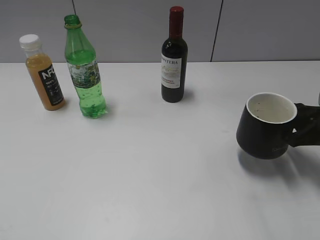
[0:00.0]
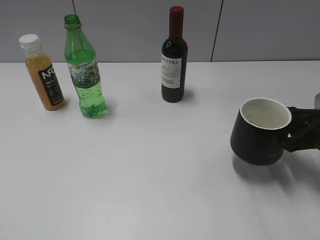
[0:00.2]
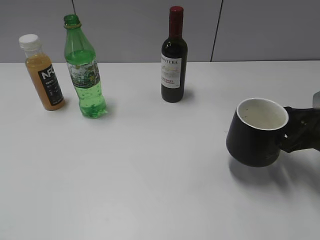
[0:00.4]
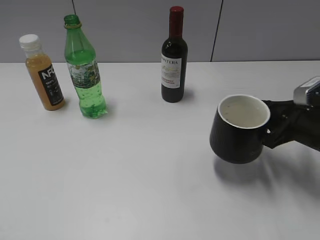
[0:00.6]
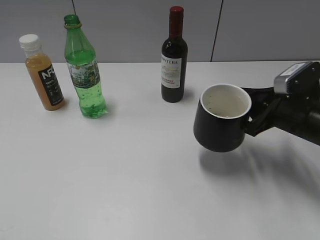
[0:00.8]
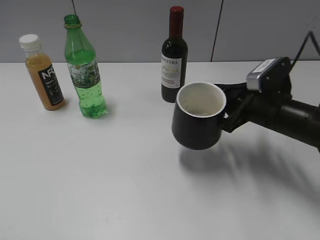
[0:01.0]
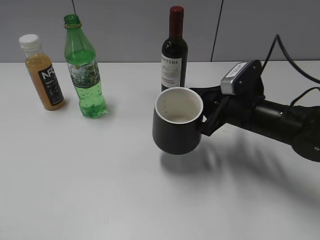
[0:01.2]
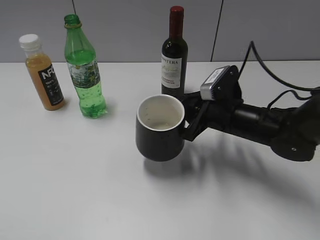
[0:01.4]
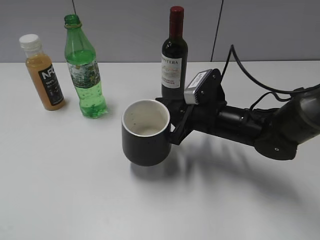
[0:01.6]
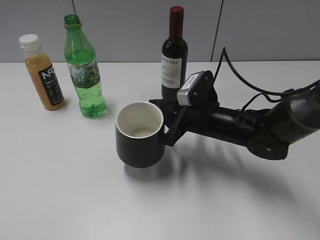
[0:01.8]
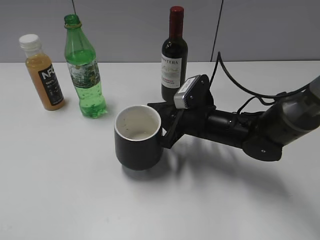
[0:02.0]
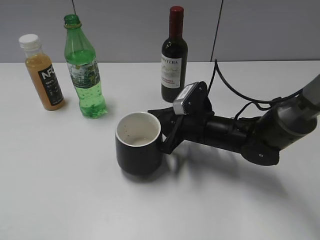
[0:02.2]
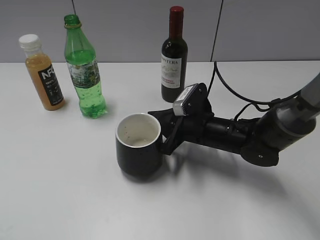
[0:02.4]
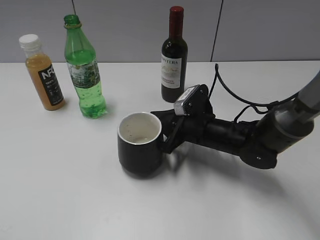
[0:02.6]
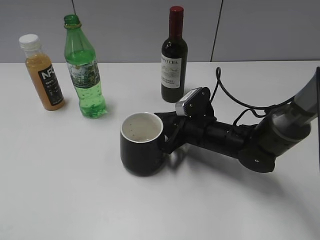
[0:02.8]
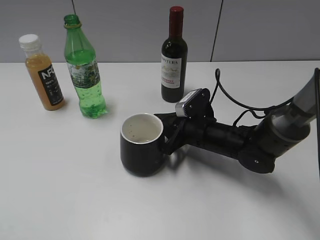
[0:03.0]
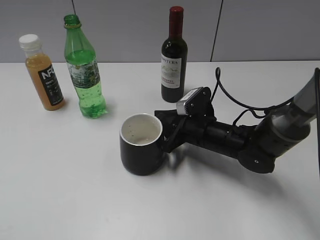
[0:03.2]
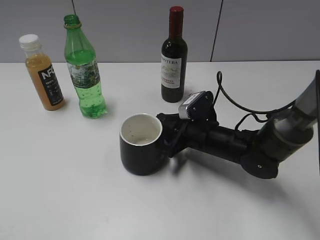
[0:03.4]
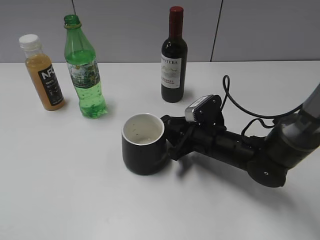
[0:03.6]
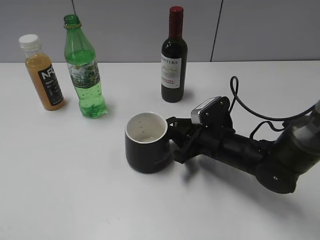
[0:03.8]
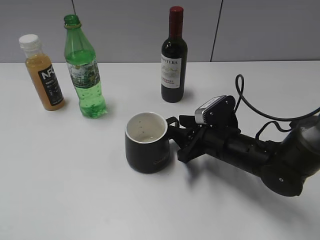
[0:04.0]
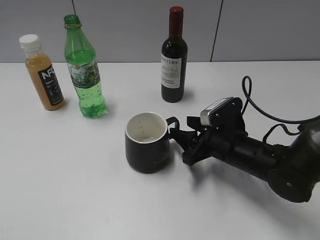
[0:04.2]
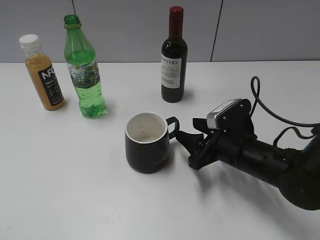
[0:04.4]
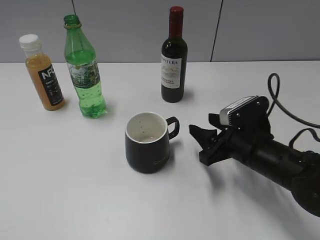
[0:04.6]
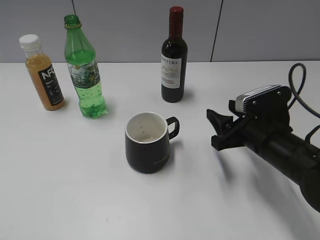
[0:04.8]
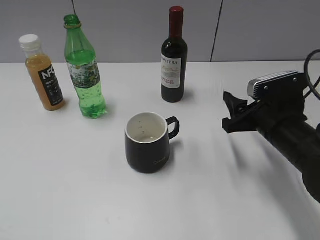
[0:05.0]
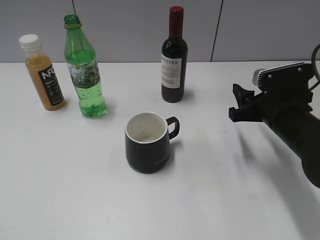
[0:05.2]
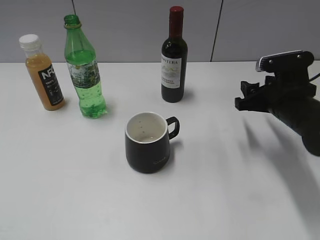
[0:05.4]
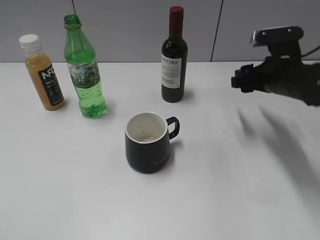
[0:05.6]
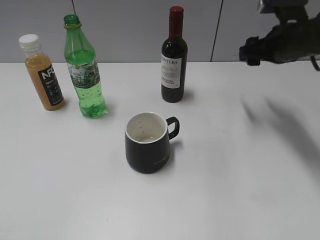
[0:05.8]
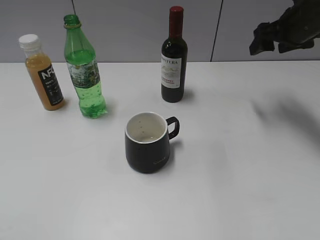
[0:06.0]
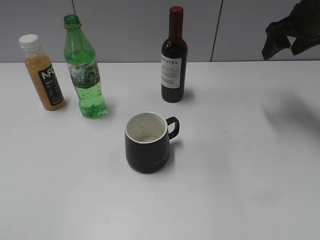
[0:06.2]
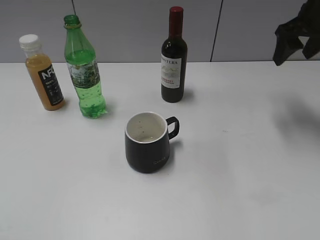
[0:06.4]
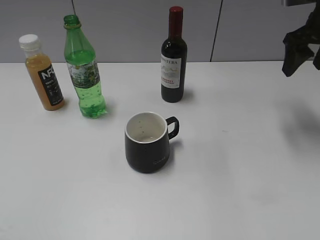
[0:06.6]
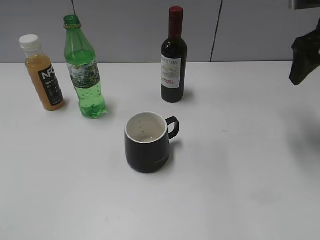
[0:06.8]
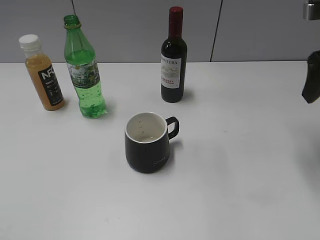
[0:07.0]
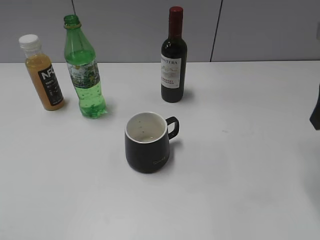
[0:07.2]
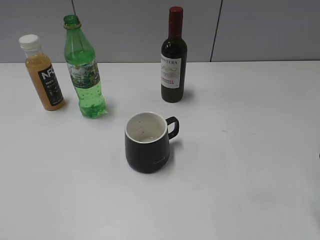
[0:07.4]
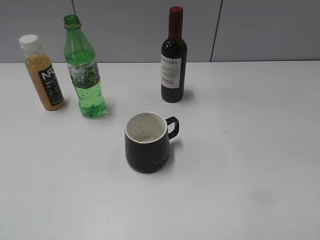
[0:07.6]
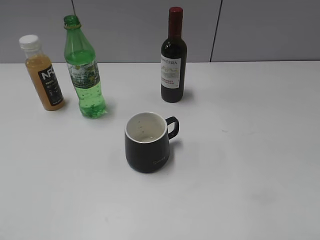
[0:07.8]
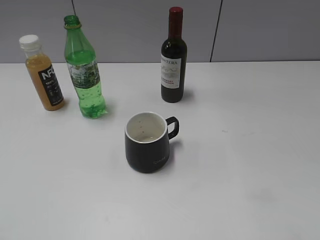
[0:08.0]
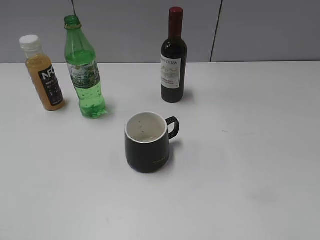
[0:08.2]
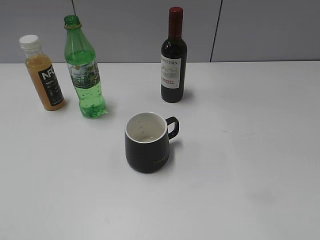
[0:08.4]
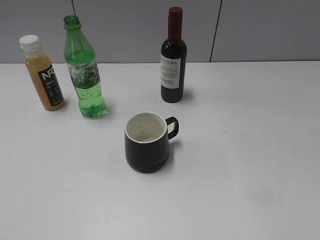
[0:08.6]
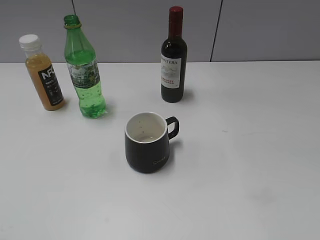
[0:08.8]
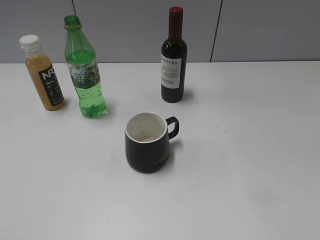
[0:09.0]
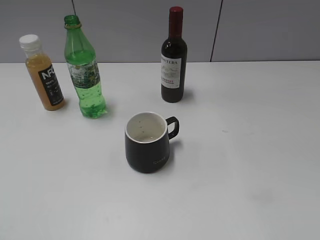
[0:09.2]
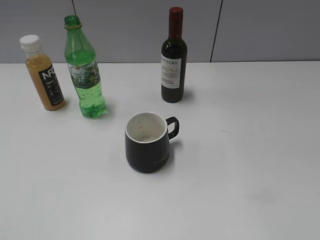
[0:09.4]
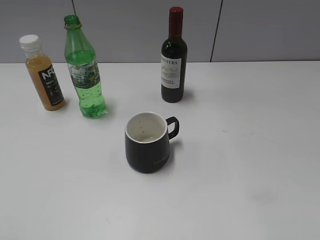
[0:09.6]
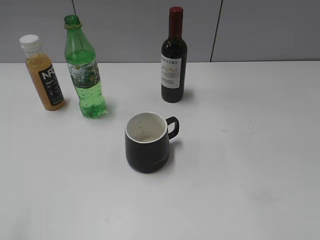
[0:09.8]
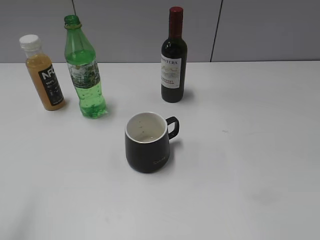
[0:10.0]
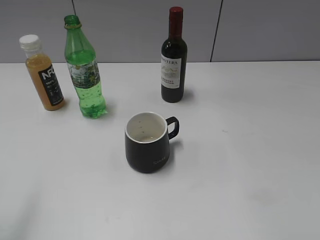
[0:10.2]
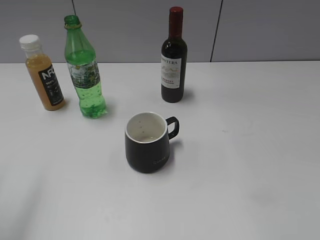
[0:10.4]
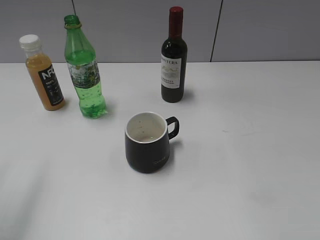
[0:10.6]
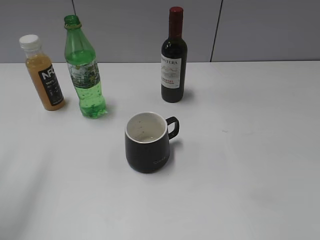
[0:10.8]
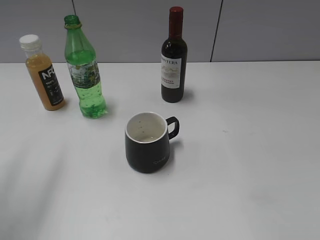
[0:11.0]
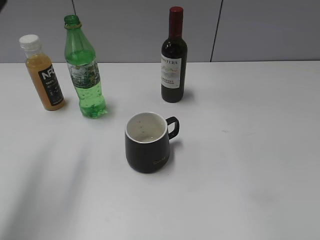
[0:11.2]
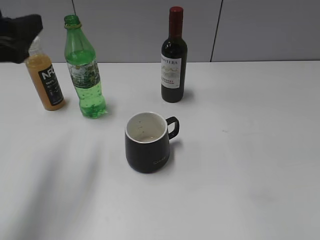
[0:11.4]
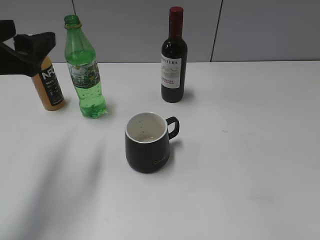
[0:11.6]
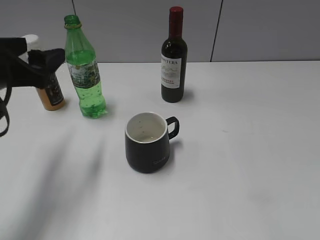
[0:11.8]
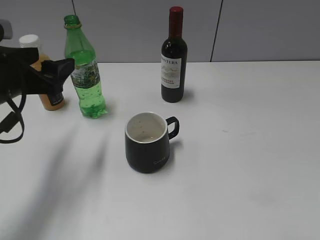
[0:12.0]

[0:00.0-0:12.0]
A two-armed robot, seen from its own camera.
Step, 0:00.0 to 0:04.2: Place the black cup in the center of view with right gripper.
0:00.0 to 0:01.6: The right gripper travels to the left by approximately 20 cm.
0:01.6 to 0:03.0: The right gripper travels downward by some 5 cm.
0:03.0 to 0:04.4: The right gripper is displaced backward and to the right by some 10 cm, and opens its fingers.
0:04.4 to 0:06.0: The right gripper travels upward, forward and to the right by roughly 25 cm.
0:06.0 to 0:07.6: The right gripper shifts roughly 25 cm backward.
0:09.0 to 0:10.4: The left gripper is displaced forward by some 15 cm.
0:10.4 to 0:12.0: The left gripper heads downward, forward and to the right, covering roughly 20 cm.

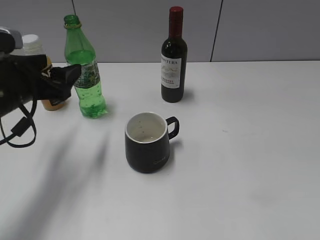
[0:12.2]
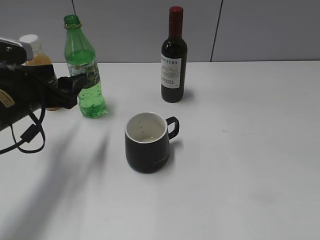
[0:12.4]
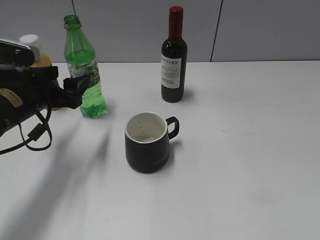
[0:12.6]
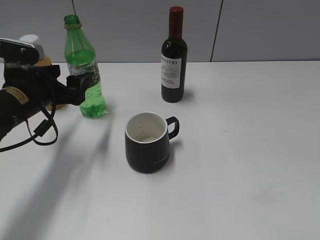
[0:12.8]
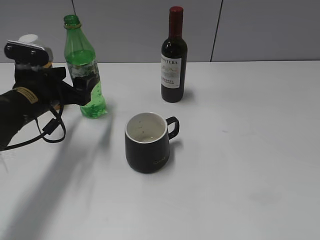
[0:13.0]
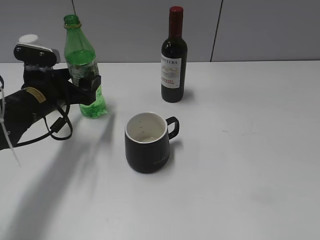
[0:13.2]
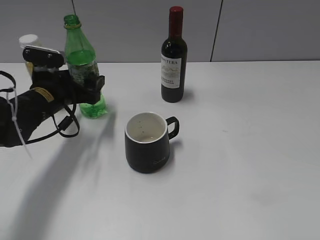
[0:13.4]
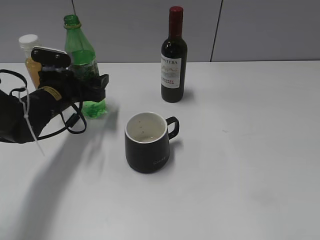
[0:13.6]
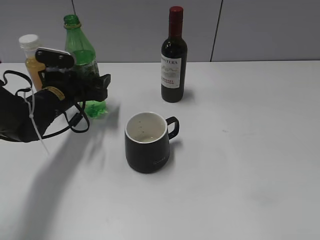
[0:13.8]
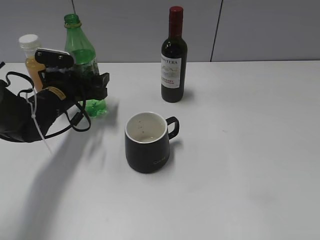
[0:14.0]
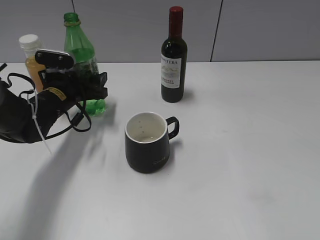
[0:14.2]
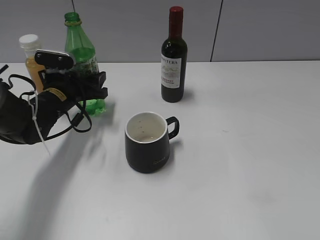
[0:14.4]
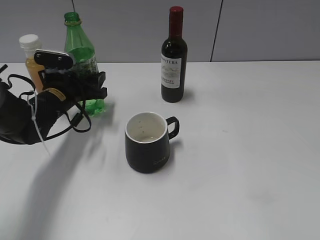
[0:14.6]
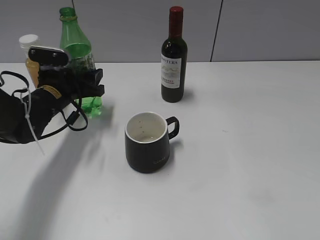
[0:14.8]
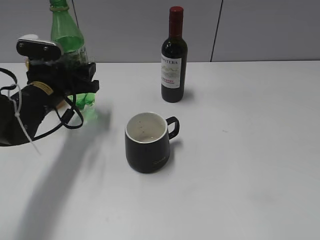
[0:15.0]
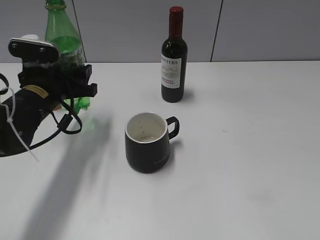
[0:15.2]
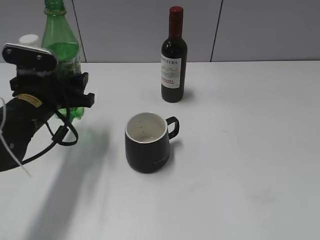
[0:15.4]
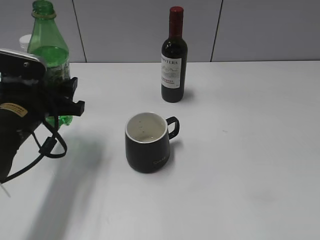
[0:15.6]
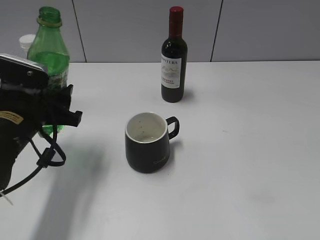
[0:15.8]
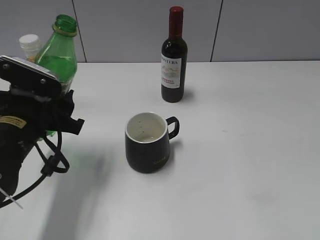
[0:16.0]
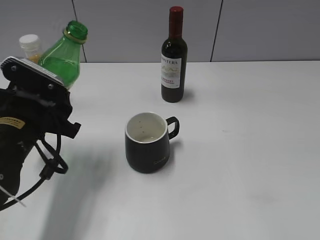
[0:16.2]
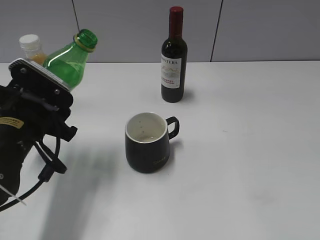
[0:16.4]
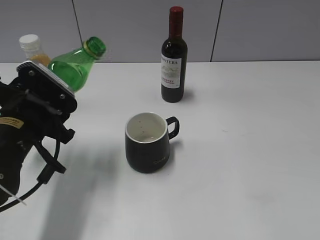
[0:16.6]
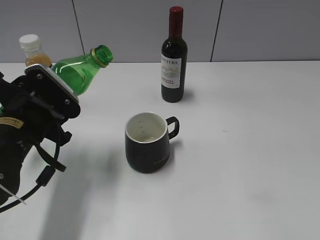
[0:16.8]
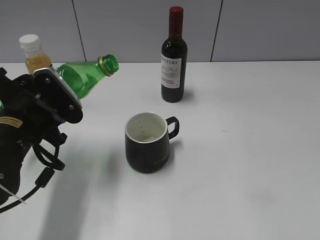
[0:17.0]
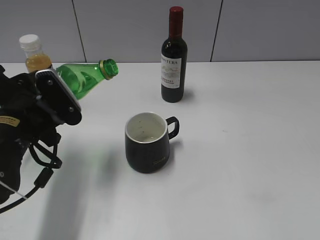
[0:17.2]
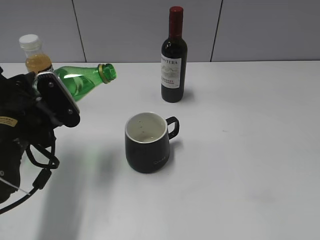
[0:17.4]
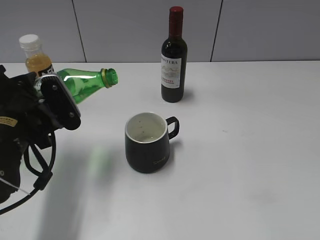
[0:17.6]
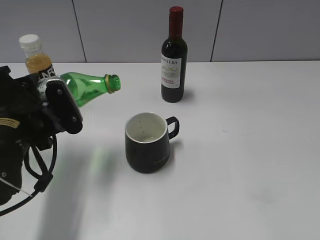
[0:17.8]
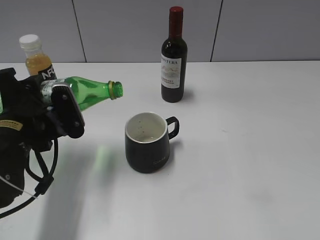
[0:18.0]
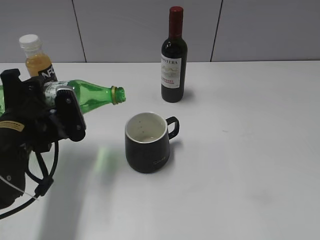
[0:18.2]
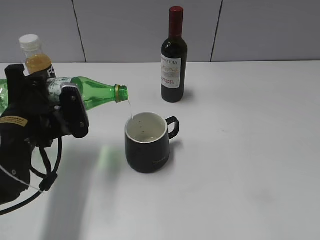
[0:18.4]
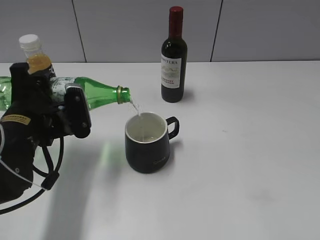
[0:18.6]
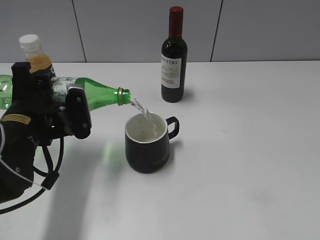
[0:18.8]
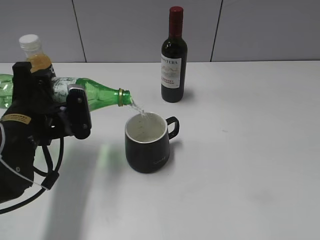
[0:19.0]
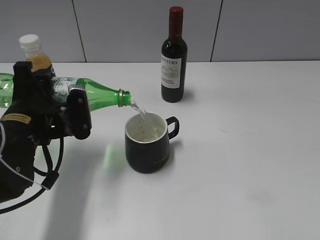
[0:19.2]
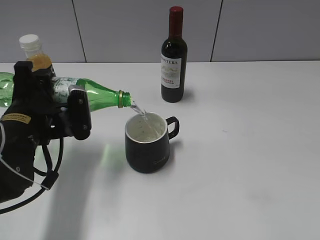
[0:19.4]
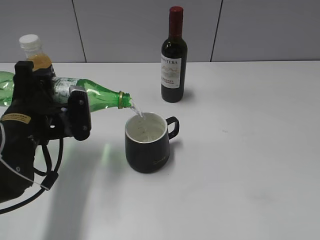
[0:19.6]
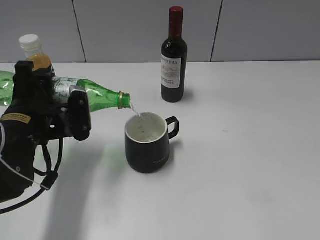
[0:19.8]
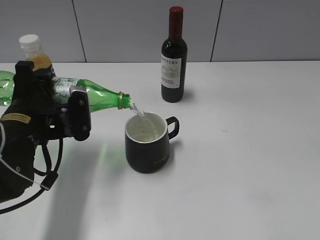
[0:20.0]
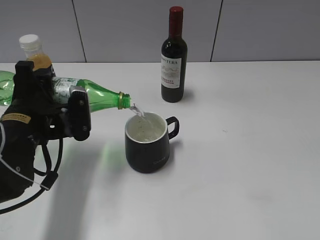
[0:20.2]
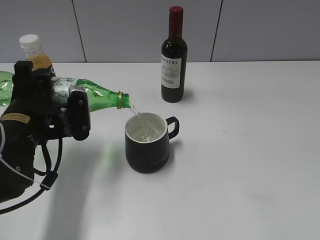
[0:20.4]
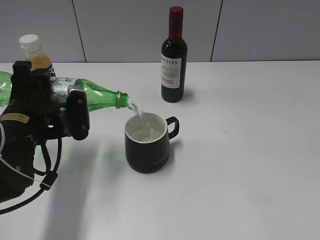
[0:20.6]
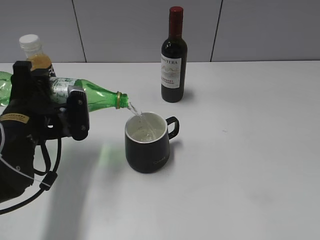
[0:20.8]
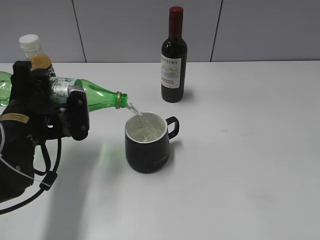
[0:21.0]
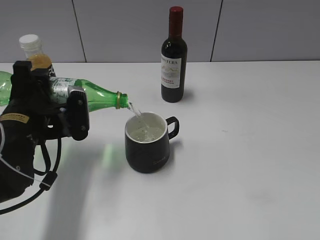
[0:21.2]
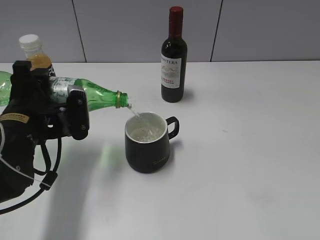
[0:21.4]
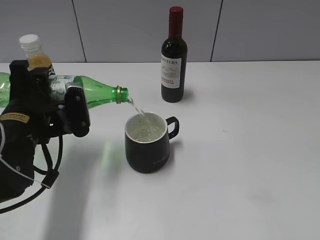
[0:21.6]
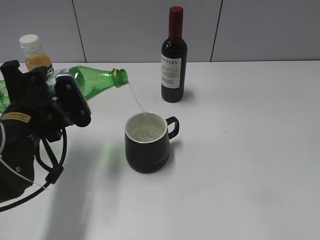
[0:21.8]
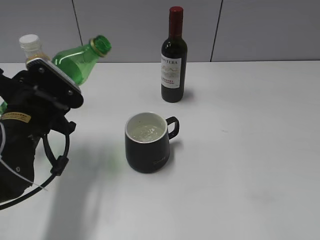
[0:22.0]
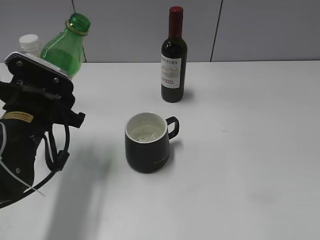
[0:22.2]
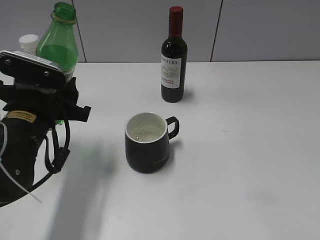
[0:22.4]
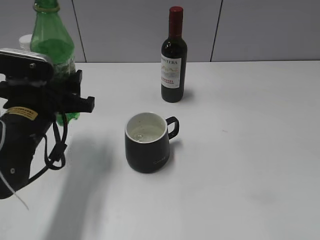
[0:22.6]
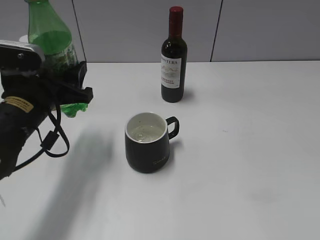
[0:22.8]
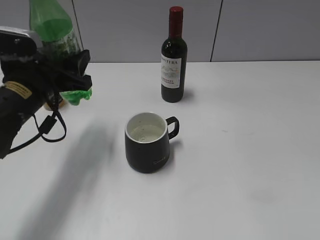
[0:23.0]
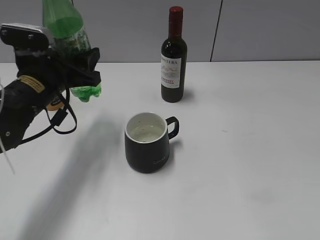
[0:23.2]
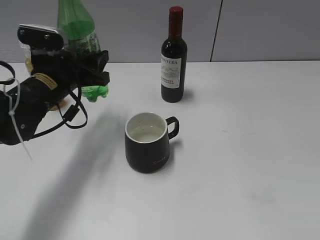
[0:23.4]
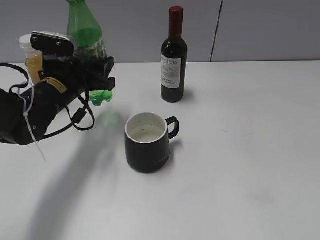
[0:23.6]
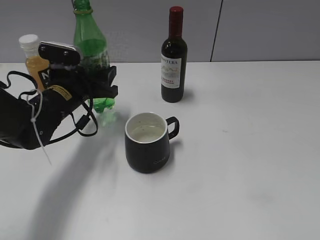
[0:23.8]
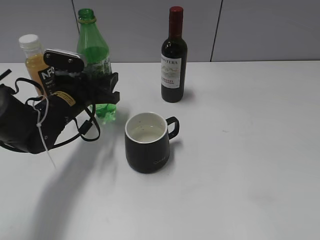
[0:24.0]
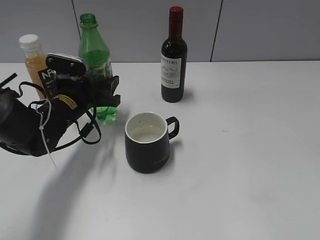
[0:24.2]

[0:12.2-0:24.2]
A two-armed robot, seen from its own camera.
Step, 0:12.2 to 0:14.2: Grasp the bottle with sprite with left gripper.
Step, 0:14.4 to 0:21.8: Pour the sprite from bottle to cup with left gripper.
0:12.2 to 0:13.8: The left gripper shifts some 15 cm forward and downward.
0:13.8 to 0:15.2: The left gripper is displaced backward by some 5 cm, and closes up.
0:15.2 to 0:16.6: The left gripper travels backward by about 10 cm.
0:18.2 to 0:19.8: The grippers stay close to where they were, moving slightly.
0:19.8 to 0:21.2: The two grippers keep their place.
0:22.6 to 0:24.2: The left gripper shifts roughly 10 cm forward and downward.
